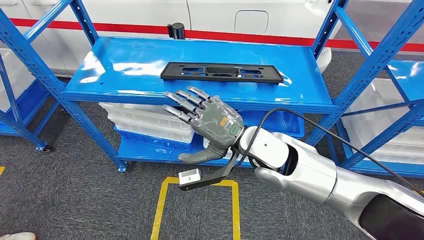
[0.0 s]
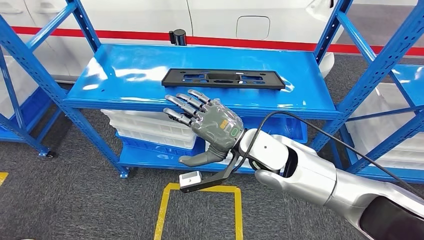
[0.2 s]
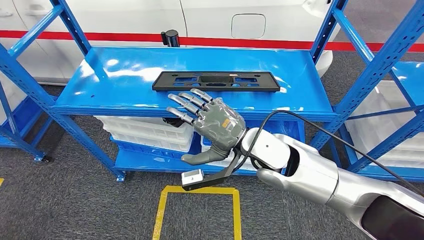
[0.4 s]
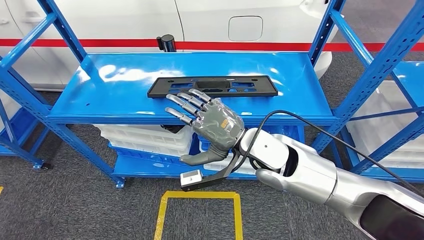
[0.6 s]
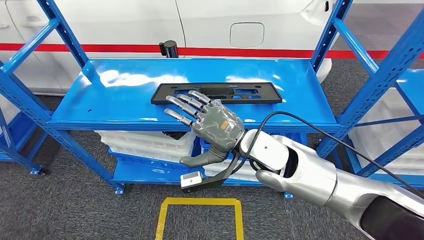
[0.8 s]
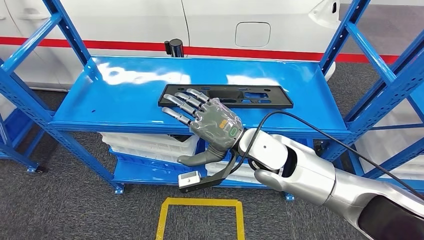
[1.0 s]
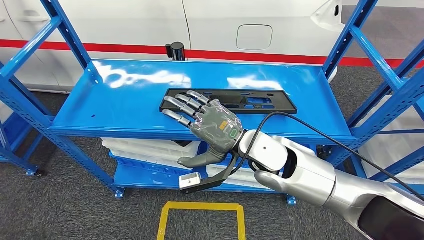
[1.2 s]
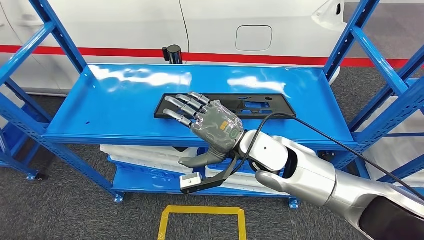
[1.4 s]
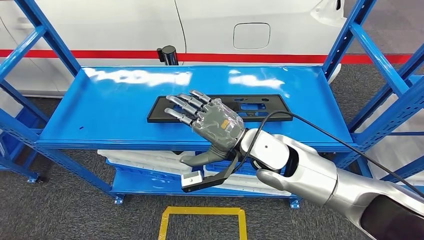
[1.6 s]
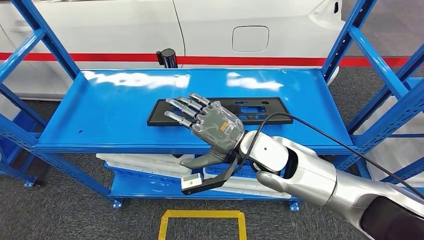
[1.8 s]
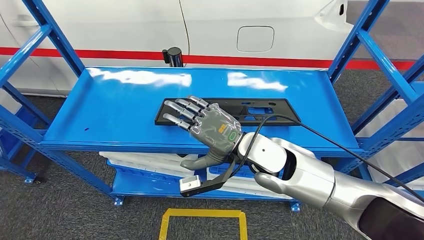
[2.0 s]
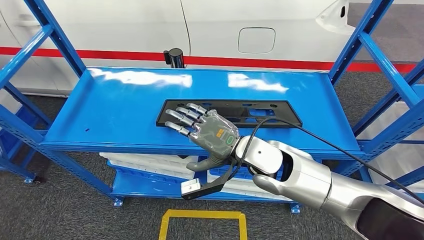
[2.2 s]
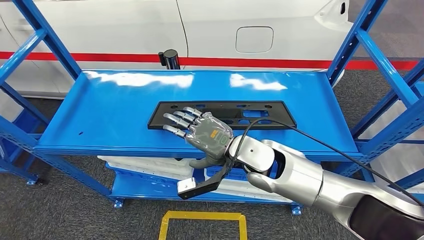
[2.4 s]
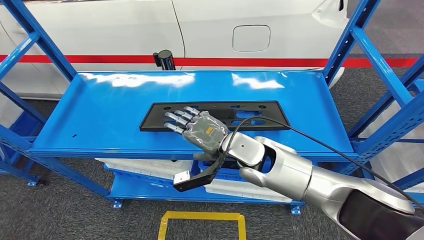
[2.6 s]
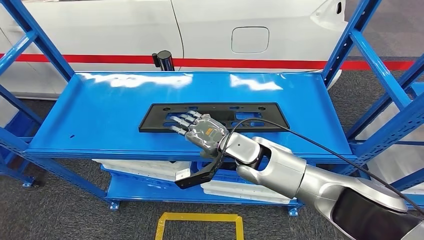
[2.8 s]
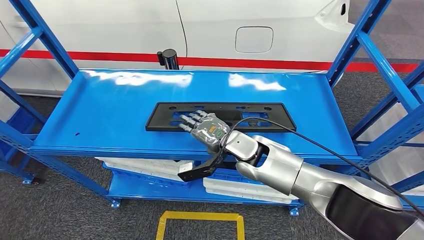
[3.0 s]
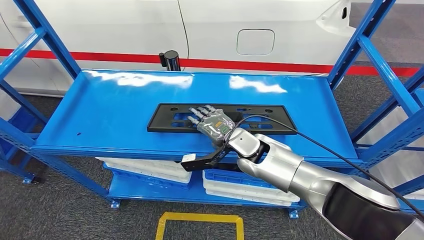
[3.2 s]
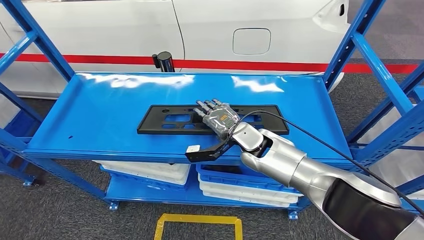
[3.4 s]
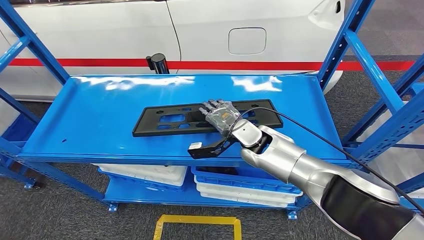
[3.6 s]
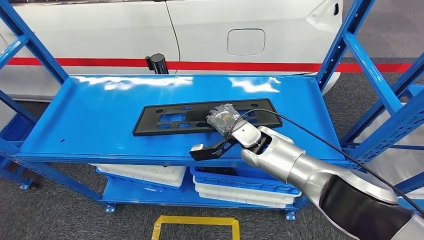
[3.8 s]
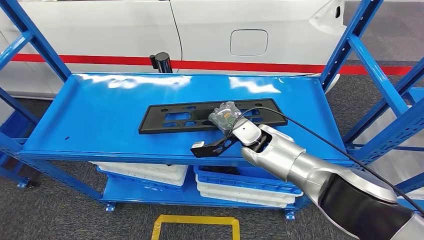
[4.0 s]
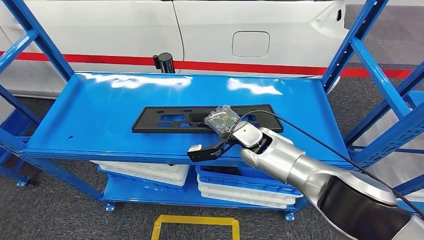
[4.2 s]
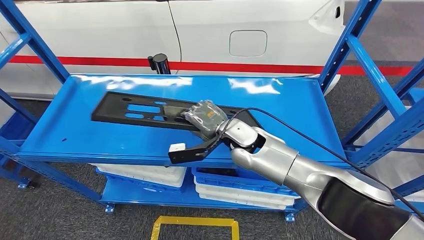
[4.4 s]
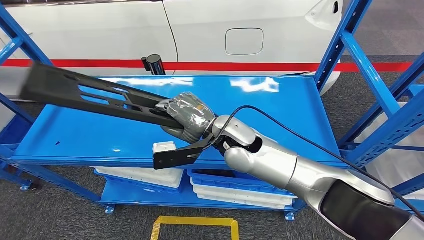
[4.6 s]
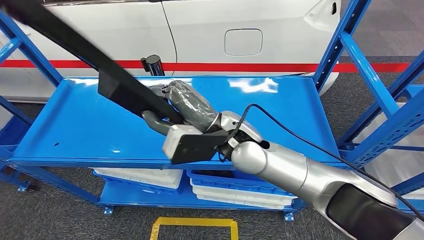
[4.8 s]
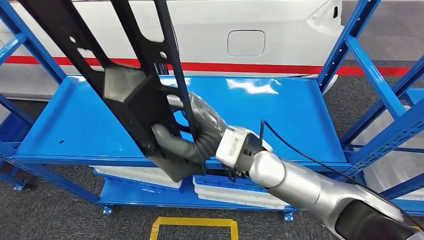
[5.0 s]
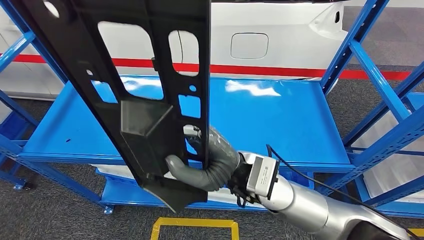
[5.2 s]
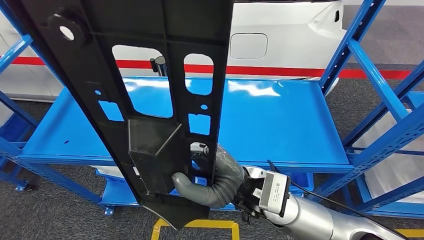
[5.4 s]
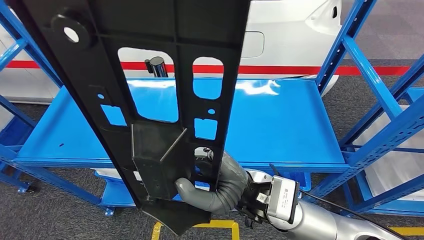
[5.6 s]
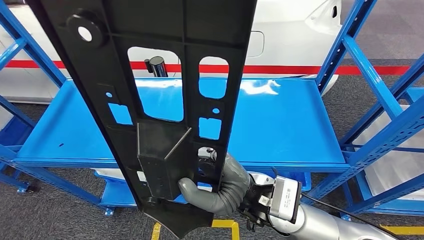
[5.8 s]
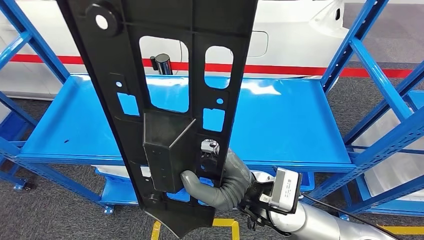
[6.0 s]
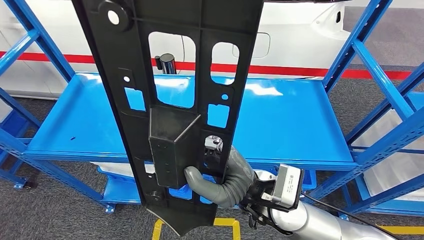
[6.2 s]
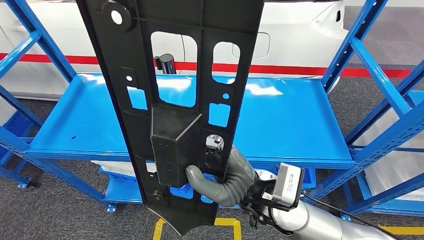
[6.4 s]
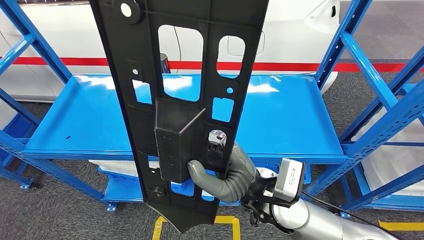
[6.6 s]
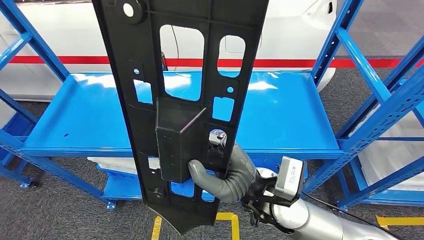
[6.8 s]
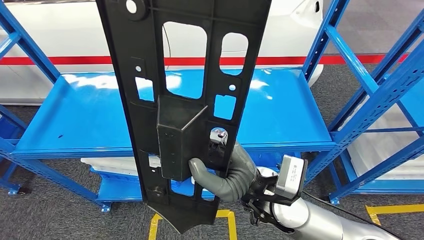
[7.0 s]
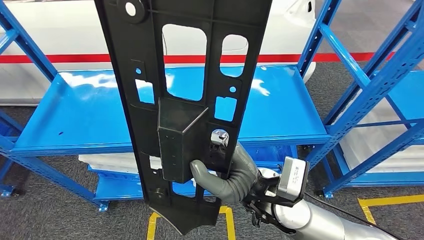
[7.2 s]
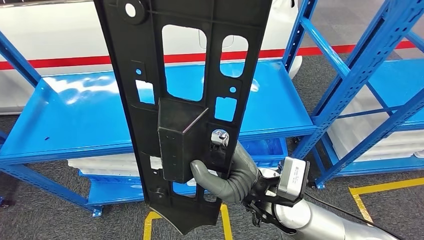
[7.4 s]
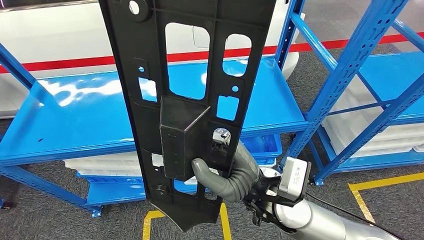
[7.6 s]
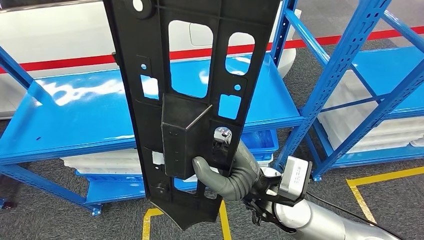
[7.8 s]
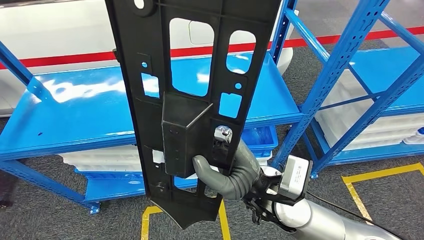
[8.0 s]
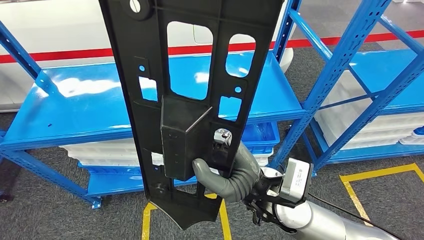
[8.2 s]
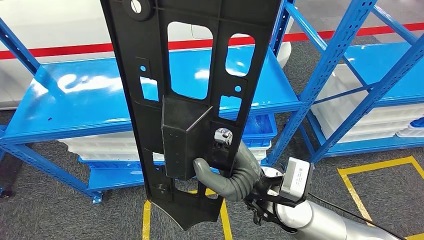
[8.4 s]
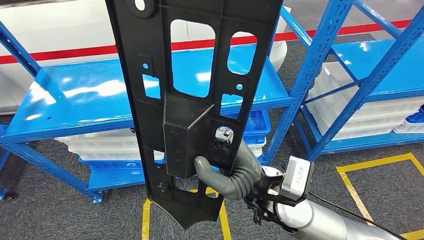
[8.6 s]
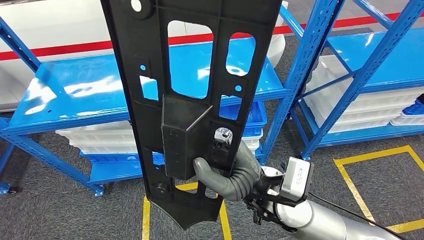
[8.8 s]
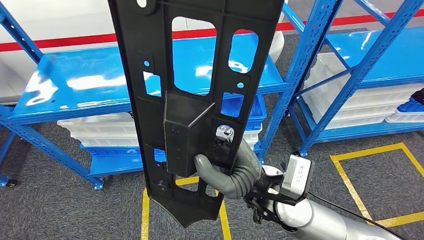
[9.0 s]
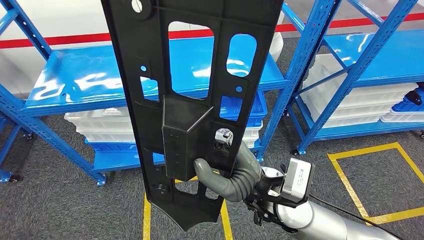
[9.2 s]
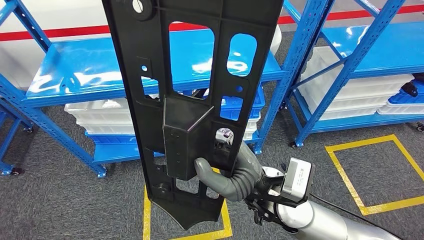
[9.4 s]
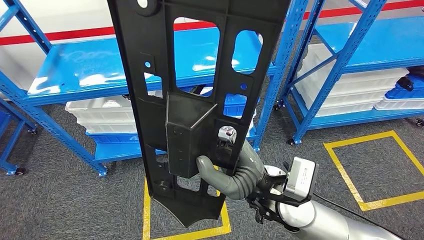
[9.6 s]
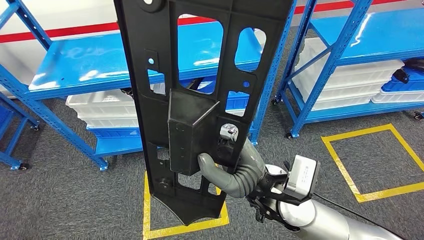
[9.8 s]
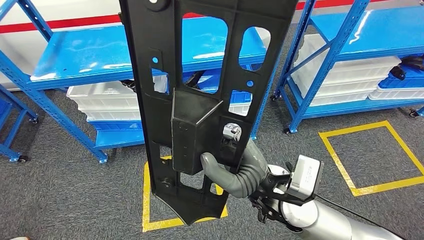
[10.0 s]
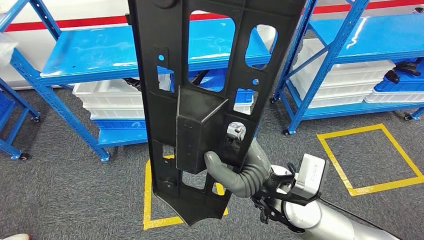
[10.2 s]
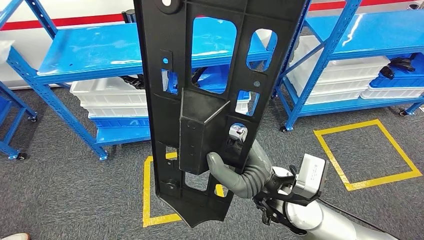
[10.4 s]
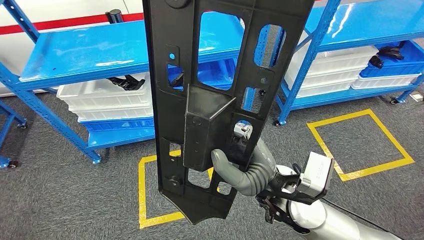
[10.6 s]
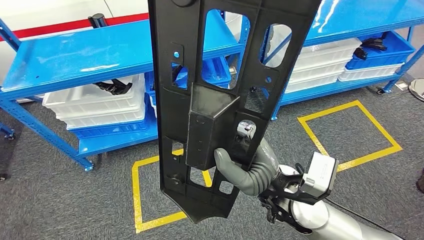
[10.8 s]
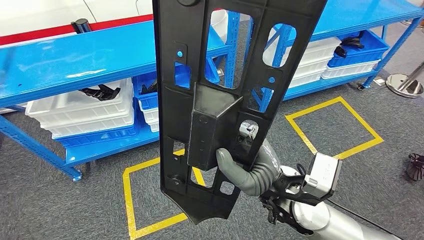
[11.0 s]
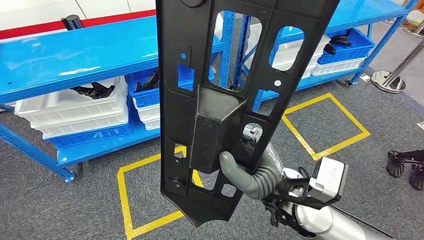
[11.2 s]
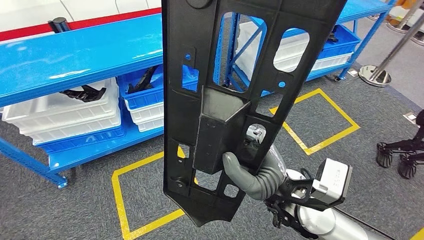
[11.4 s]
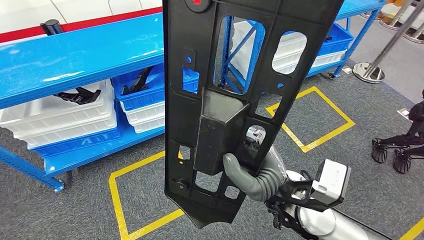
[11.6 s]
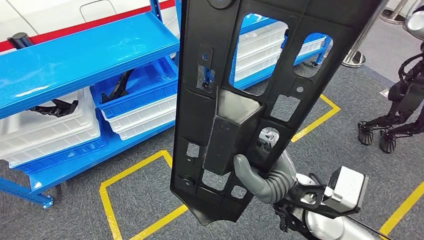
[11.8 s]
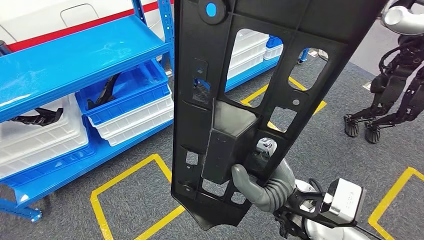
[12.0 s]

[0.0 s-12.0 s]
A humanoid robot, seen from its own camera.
Step, 0.0 to 9.6 s: Pick up the large parts from the shelf.

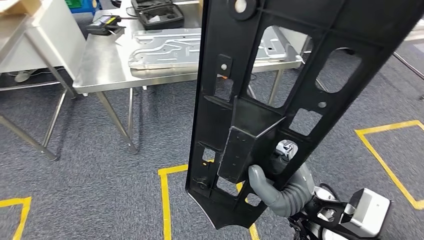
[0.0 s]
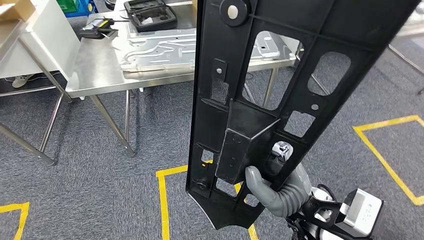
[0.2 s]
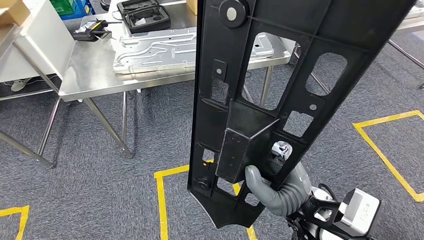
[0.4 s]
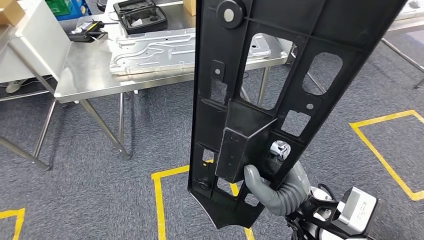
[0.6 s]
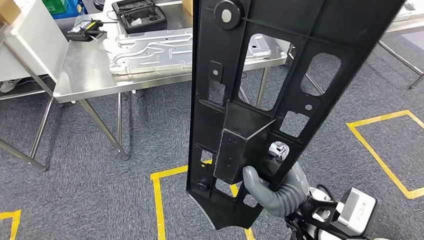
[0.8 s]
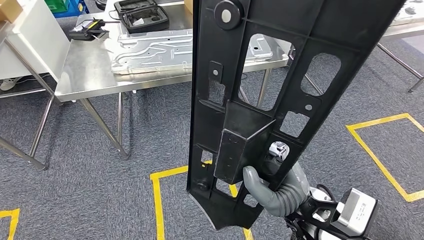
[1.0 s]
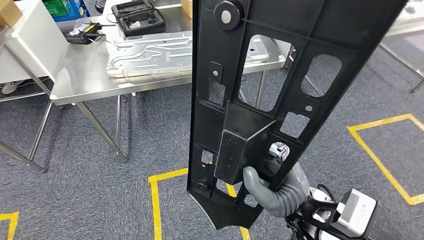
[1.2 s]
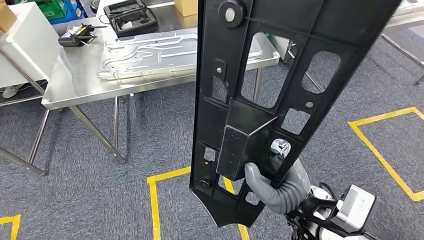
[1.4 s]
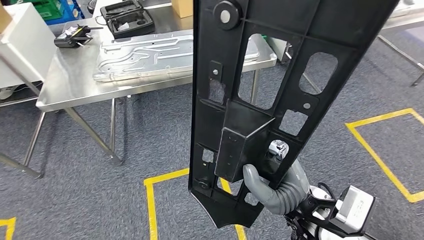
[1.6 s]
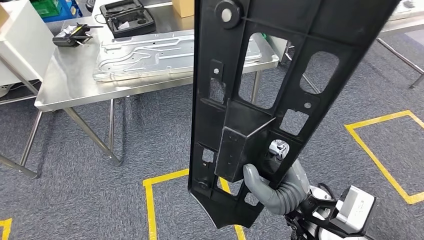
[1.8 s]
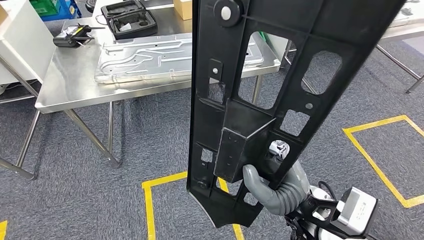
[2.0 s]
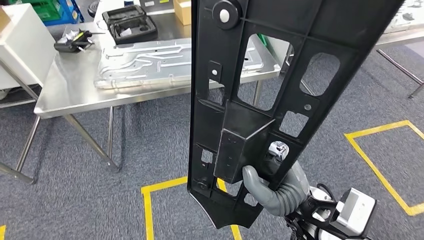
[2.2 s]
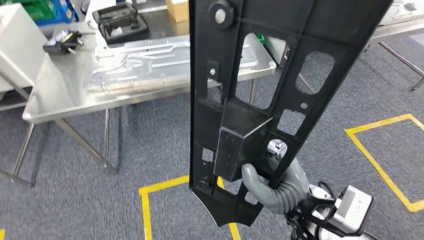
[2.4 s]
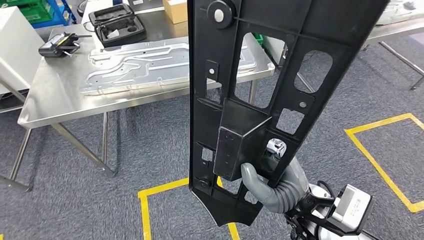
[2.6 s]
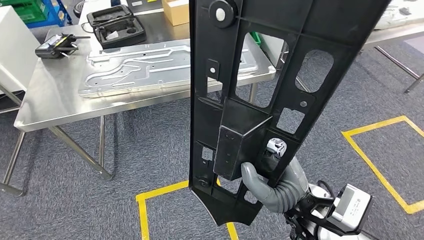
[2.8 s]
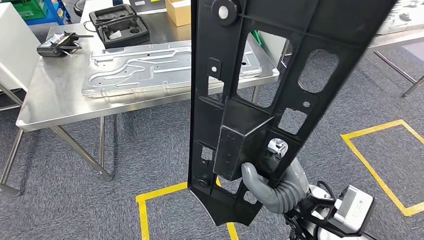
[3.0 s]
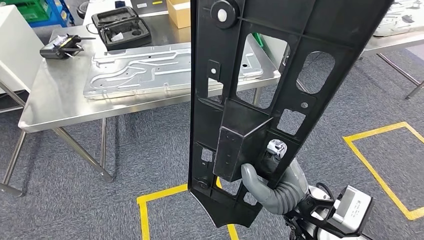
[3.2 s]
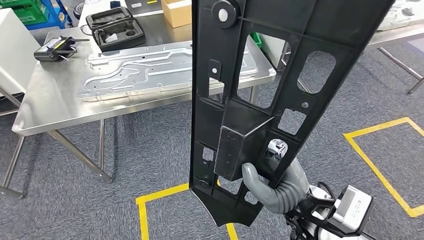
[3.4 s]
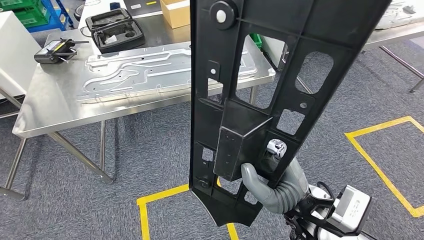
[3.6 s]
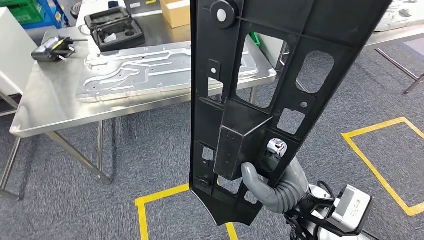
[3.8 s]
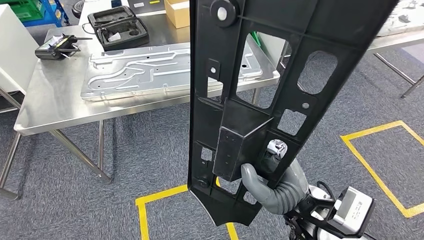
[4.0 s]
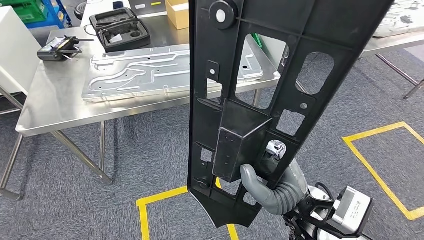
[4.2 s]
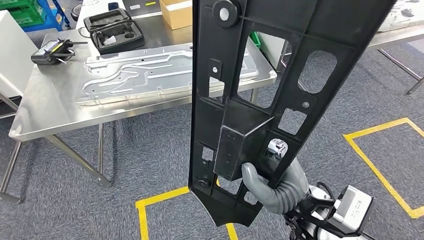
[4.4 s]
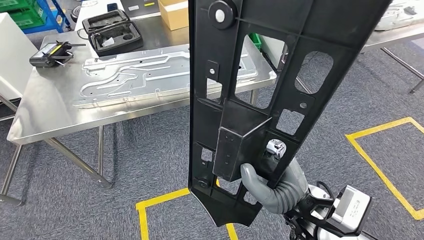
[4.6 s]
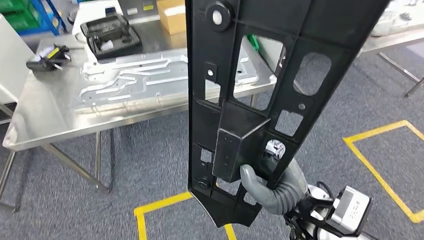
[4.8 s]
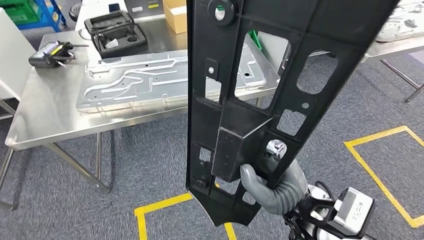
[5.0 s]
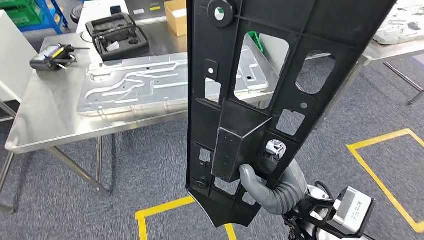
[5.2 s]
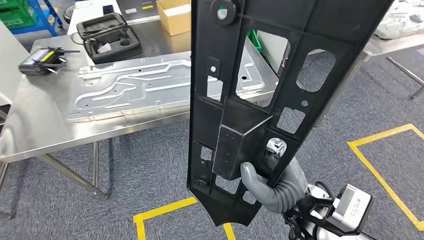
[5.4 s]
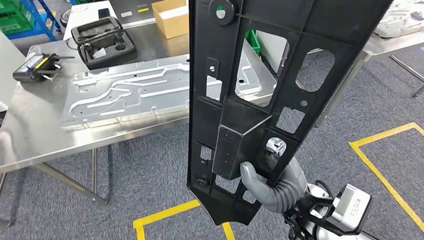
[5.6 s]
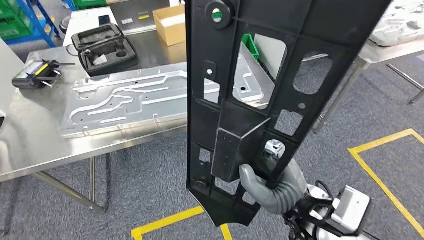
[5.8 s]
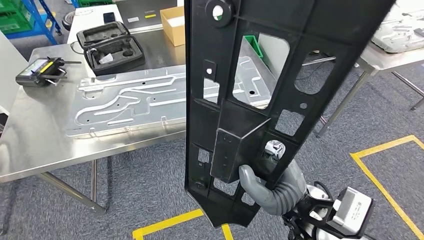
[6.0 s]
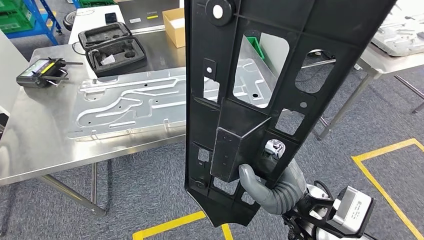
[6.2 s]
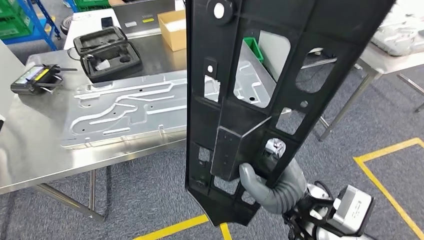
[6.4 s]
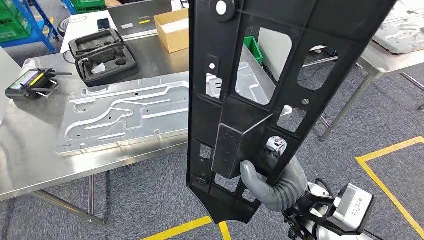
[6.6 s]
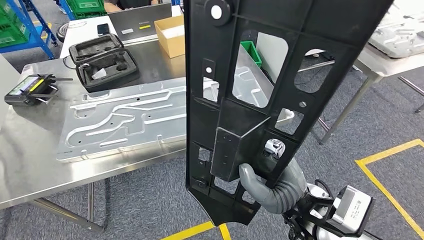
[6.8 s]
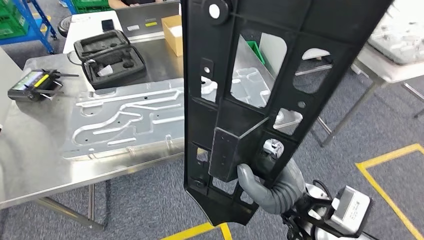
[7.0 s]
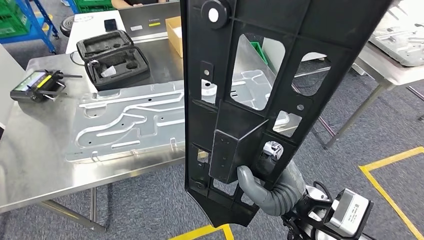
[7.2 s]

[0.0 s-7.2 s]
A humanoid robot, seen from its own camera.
Step, 0.0 to 6.4 s: Move the large parts to the workbench.
